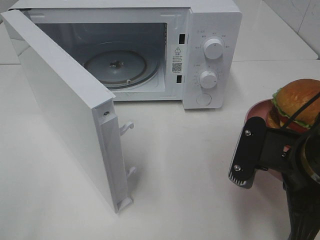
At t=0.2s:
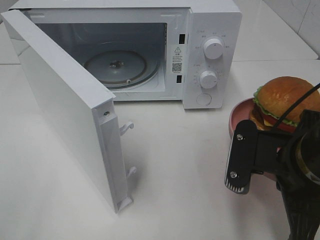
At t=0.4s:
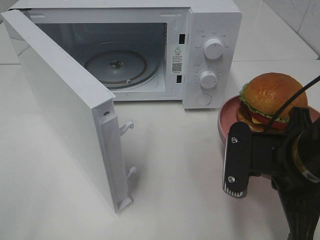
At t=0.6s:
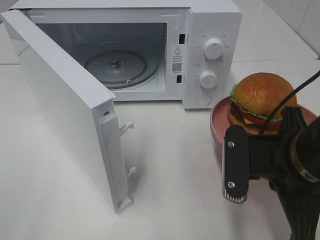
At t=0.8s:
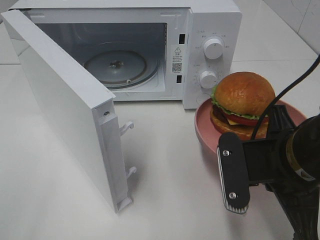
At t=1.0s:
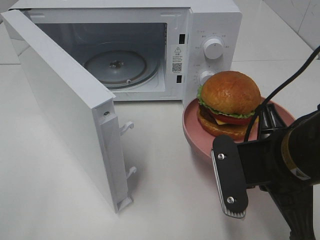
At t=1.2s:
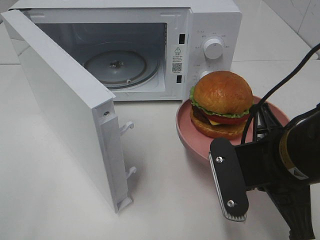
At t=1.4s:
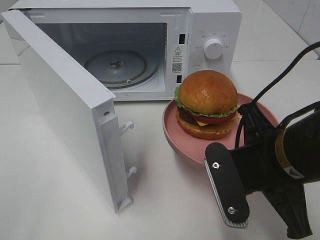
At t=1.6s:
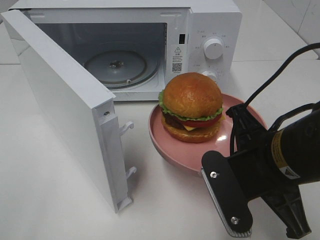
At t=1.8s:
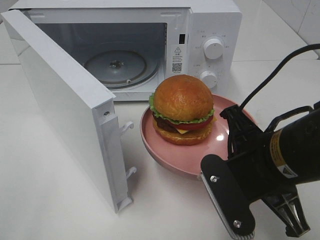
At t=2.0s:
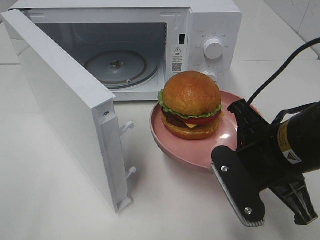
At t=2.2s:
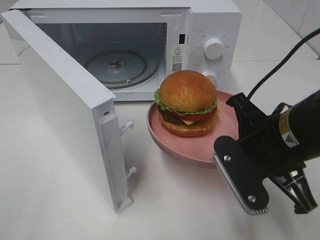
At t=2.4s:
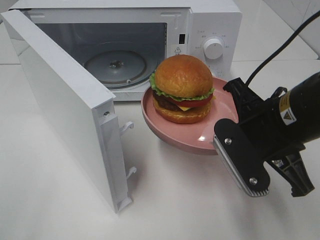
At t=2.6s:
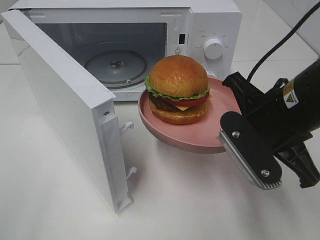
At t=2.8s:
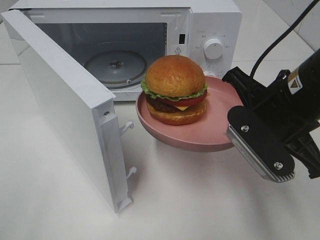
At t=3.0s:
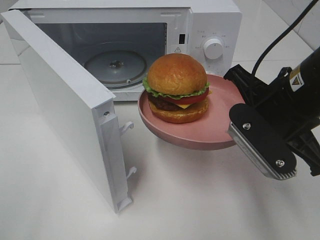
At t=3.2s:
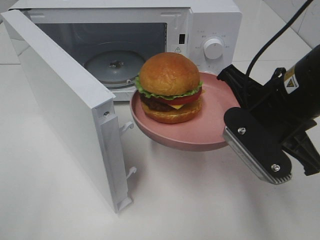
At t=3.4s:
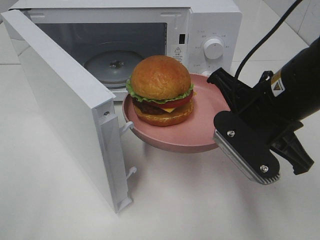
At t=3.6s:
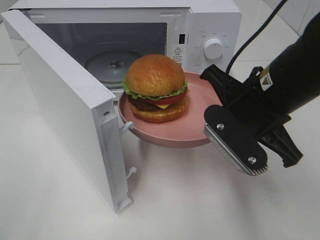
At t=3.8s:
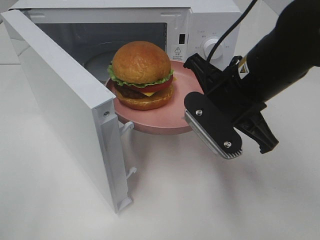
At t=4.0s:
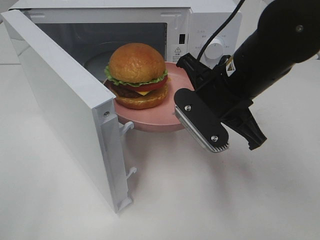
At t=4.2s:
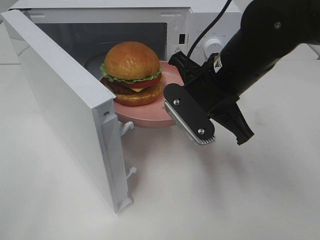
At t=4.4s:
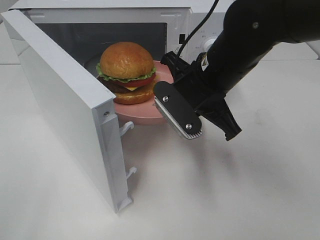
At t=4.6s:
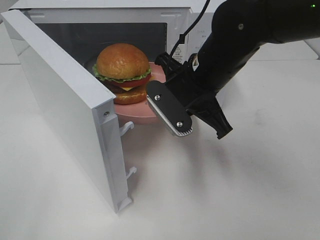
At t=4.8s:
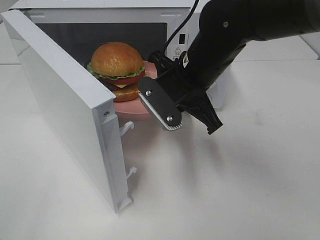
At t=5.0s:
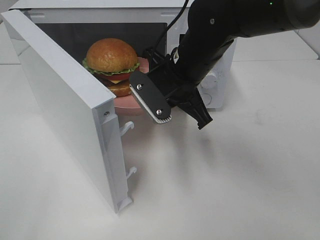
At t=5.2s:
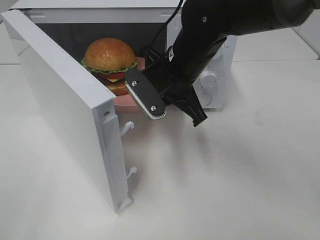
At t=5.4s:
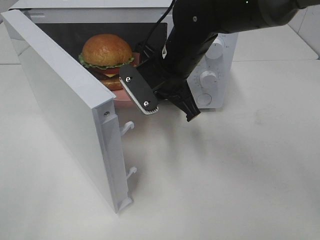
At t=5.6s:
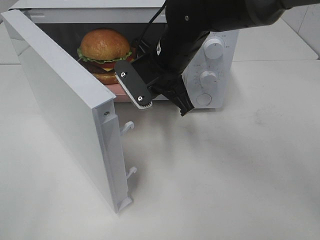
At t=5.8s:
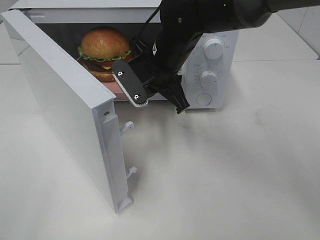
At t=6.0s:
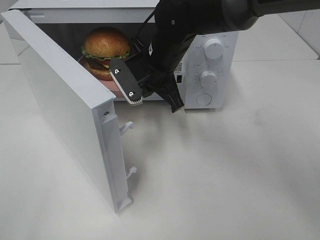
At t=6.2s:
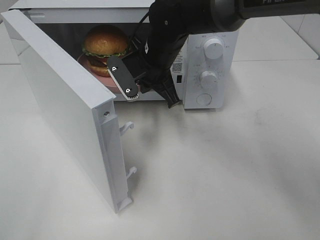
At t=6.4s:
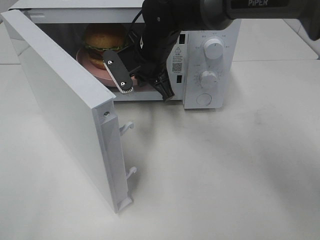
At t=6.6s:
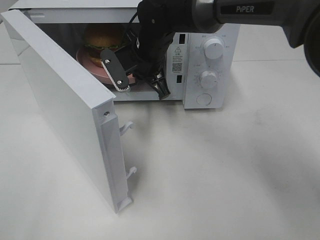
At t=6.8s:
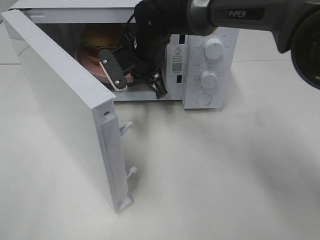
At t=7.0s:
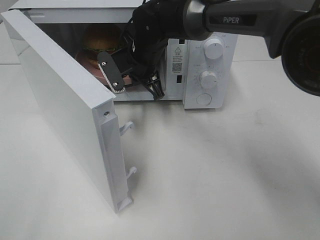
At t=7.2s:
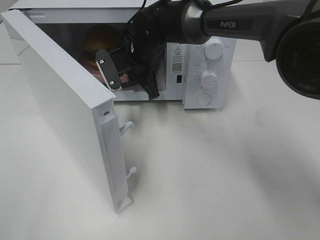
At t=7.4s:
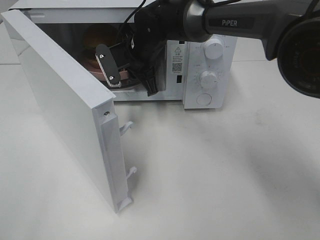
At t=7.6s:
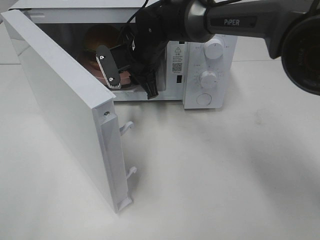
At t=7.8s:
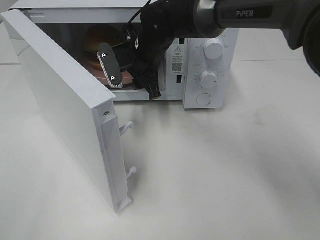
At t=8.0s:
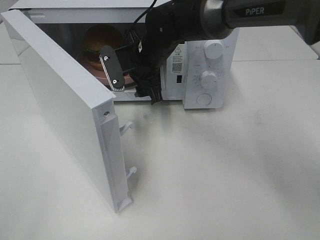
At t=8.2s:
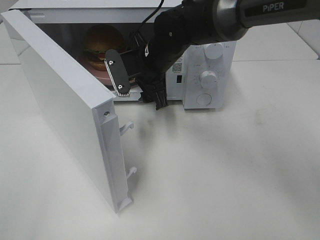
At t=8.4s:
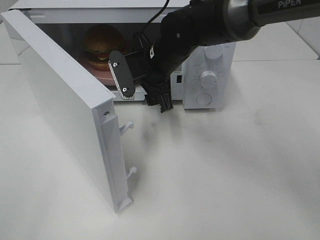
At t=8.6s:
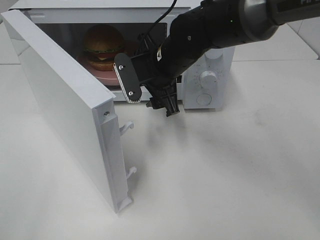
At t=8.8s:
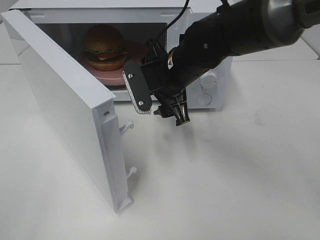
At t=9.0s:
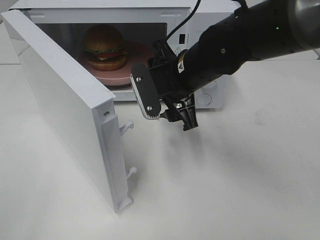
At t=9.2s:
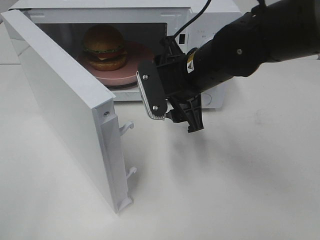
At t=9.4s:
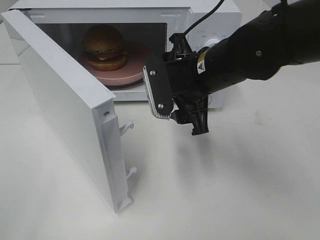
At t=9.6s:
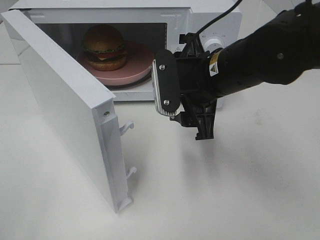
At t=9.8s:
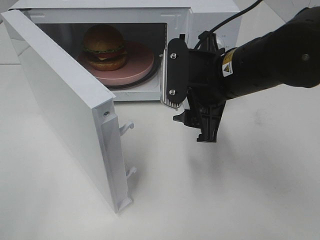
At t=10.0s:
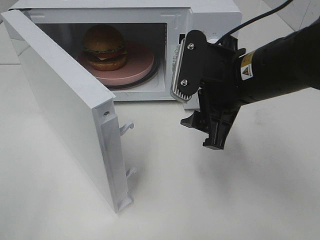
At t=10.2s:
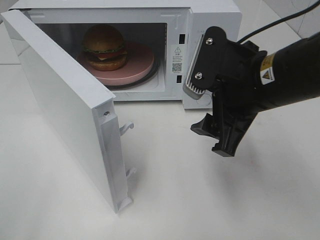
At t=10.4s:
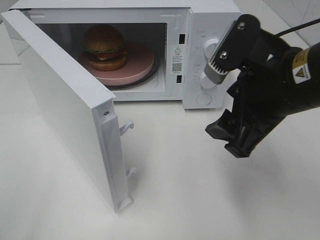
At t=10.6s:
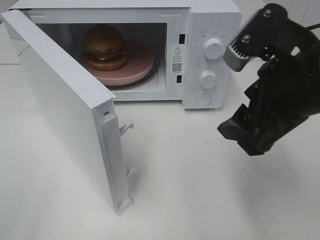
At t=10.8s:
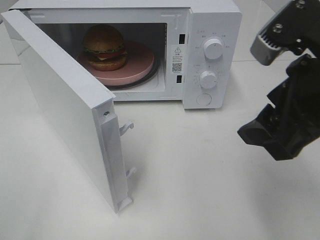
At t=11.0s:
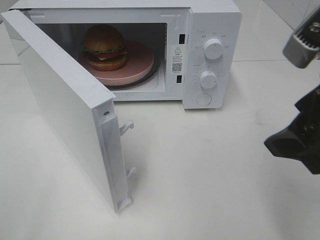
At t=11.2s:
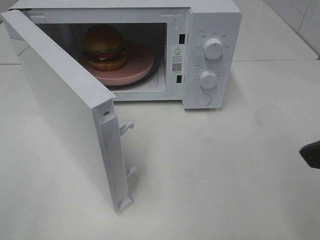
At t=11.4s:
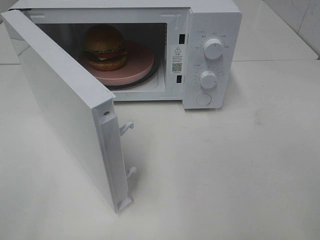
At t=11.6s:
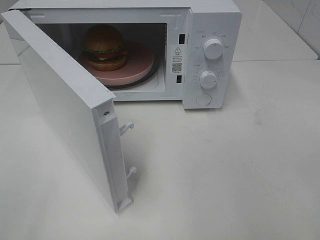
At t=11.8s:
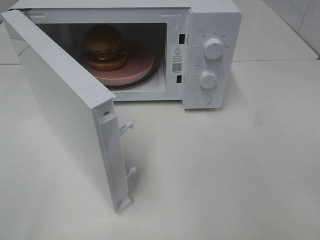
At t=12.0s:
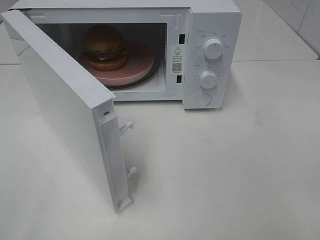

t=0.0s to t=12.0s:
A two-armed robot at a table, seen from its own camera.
Task of the whole recording: Heat the burger.
Step, t=0.0s to t=7.6s: Right hand: place the plate in the microwave.
t=1.6s to t=3.0s: The right gripper goes about 5 cm forward.
t=3.0s to t=4.4s: The right gripper goes about 10 cm to the left and forward.
t=4.4s to t=6.0s: The right gripper goes approximately 10 cm forward and to the left.
t=6.0s to t=7.6s: The right gripper moves forward, roughly 5 cm, and opens.
t=7.6s to t=9.0s: The right gripper travels backward and to the right by roughly 15 cm.
t=9.0s to t=10.4s: The right gripper moves backward, to the right and upward, roughly 15 cm.
t=10.4s to t=12.0s: The right gripper shifts approximately 20 cm backward and to the right.

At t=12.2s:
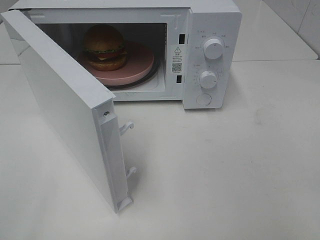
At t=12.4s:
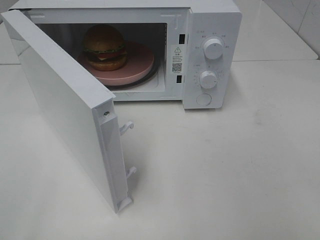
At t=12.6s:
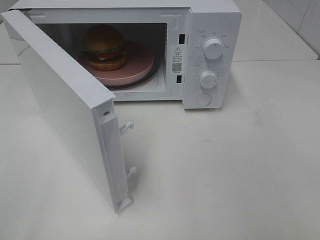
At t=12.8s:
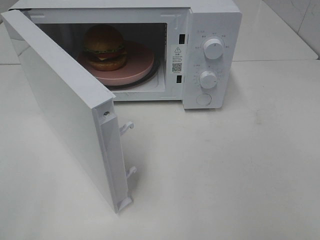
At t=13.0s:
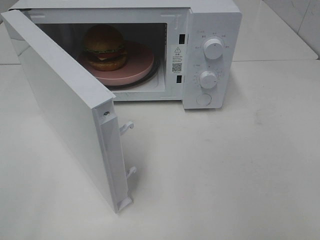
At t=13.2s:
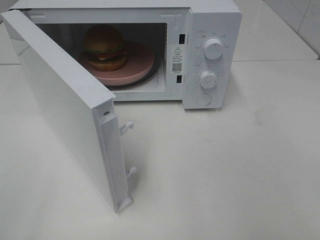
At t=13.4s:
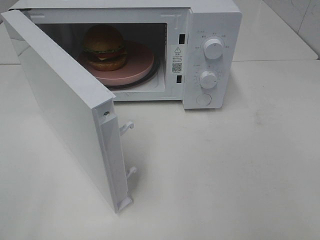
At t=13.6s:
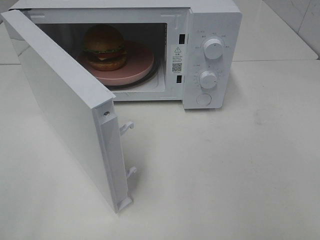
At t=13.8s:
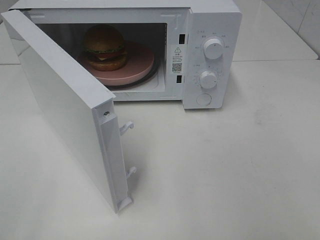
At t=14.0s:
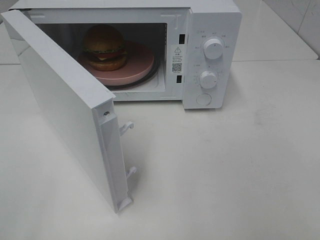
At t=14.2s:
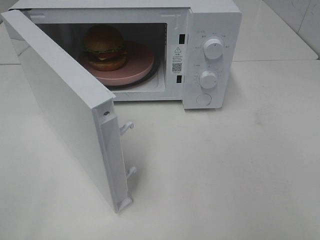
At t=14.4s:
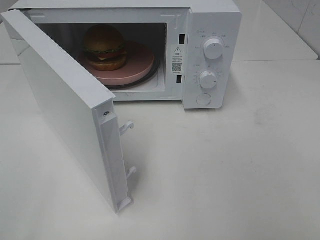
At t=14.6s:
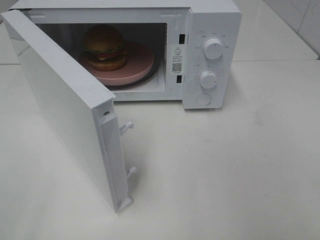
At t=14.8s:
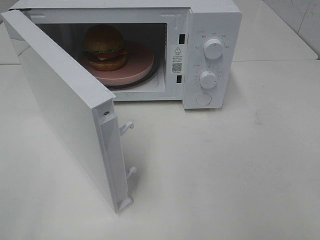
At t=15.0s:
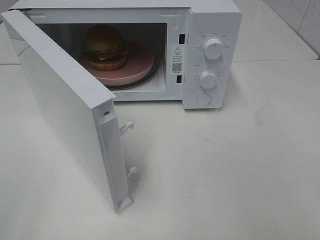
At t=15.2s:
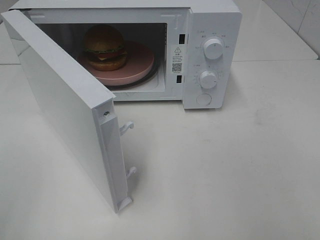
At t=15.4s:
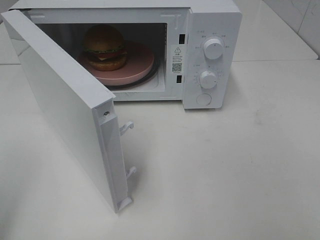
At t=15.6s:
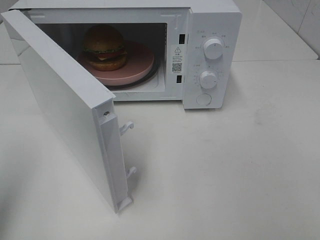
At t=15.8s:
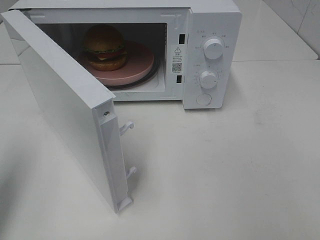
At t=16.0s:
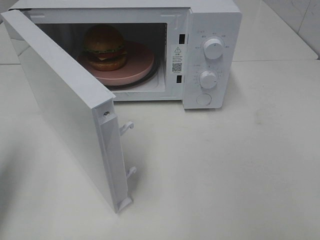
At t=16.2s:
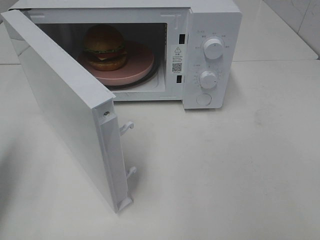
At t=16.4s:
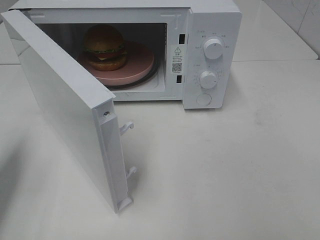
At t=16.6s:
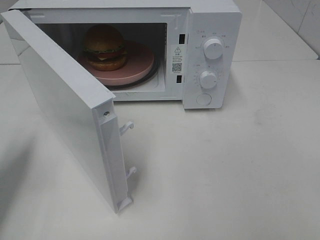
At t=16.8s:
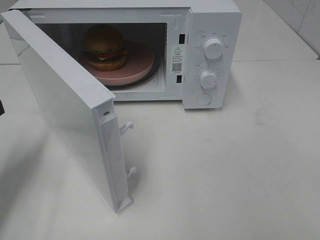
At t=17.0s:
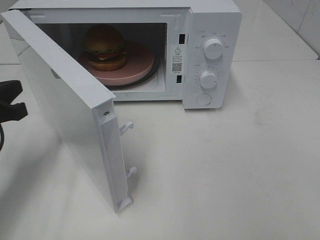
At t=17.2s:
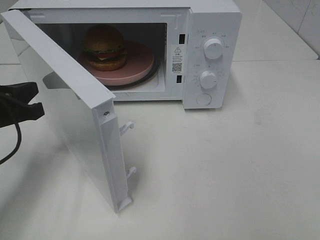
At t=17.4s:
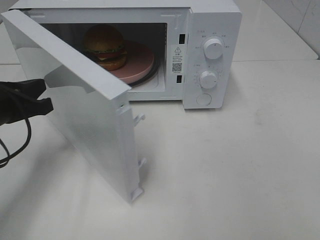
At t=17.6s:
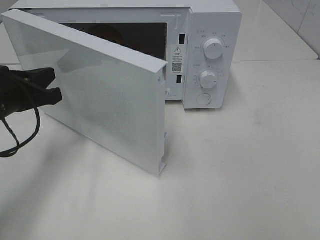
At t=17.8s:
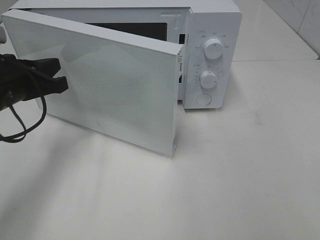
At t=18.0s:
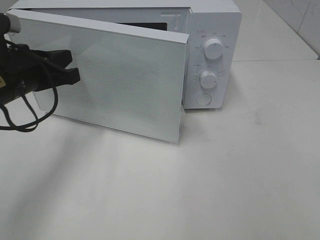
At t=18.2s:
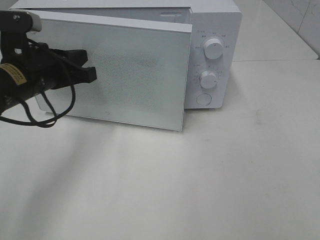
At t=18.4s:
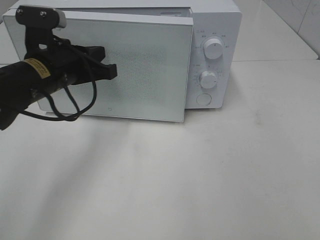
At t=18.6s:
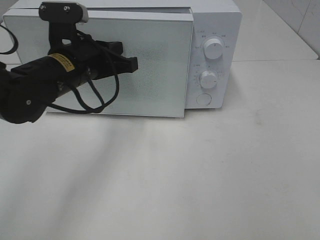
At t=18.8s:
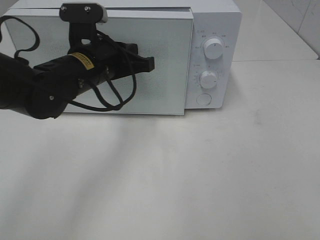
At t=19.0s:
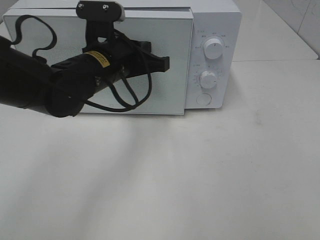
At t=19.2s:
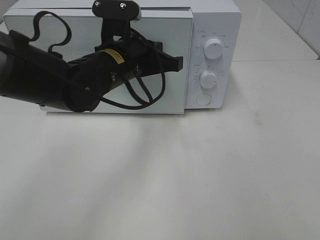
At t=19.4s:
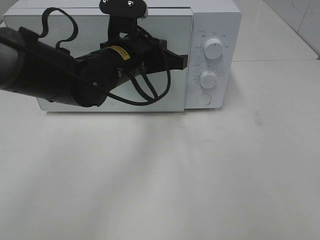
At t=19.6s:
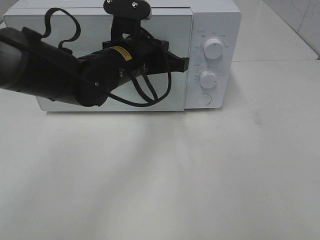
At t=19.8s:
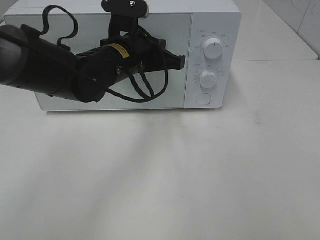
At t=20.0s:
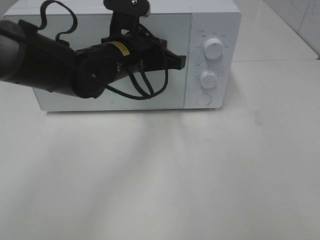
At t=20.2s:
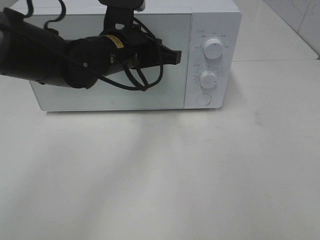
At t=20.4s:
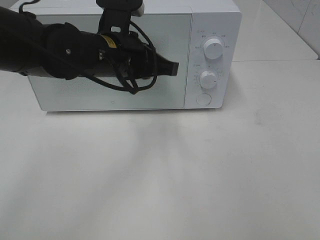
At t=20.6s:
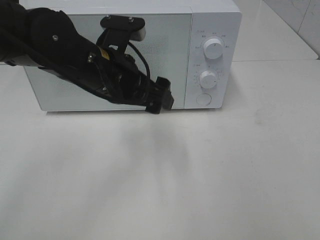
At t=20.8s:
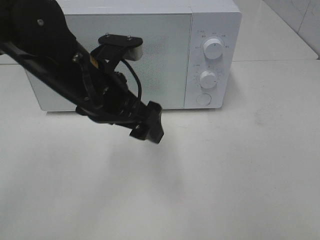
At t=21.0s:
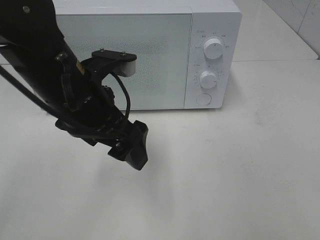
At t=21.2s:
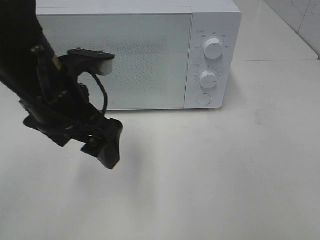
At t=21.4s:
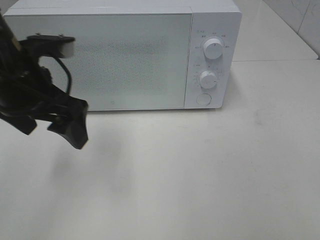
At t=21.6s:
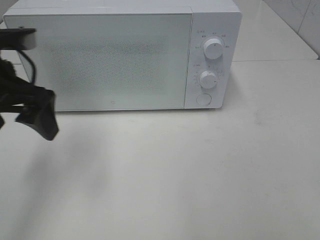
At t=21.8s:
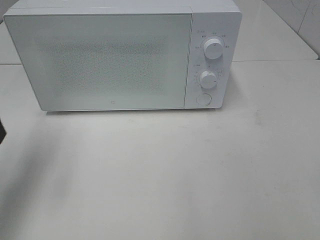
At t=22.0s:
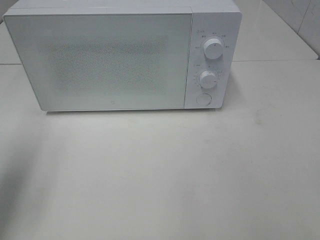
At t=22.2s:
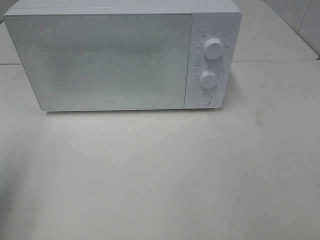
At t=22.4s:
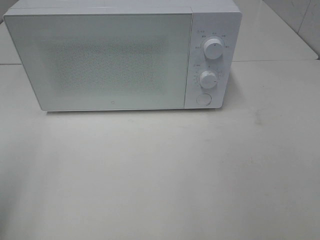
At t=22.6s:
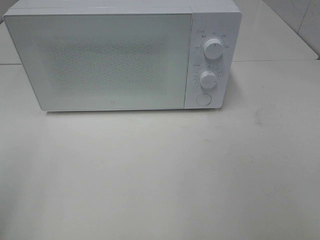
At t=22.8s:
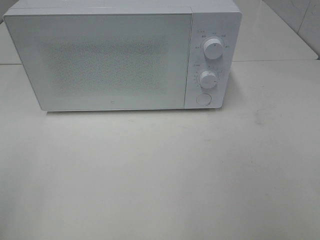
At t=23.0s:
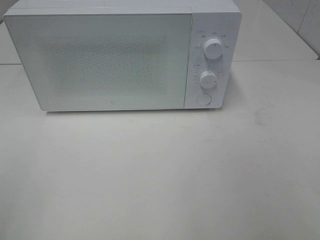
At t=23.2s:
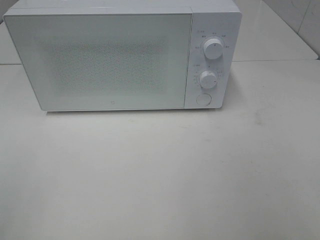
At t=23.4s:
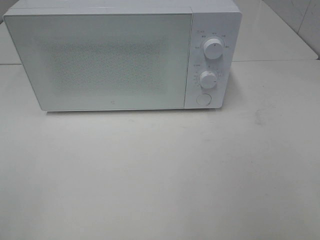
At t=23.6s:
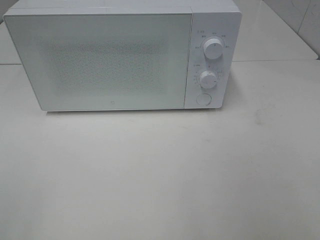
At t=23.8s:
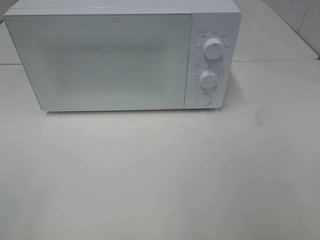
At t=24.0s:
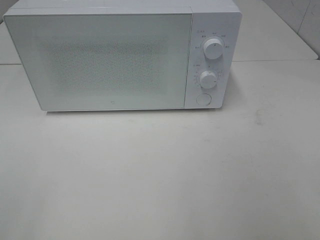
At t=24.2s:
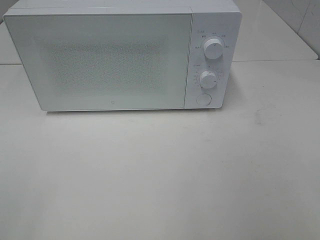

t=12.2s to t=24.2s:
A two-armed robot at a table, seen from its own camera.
Task of the whole recording: Heat the burger.
Step, t=12.2s to t=20.2s: Left hand: close the microwave door.
t=15.2s to t=16.6s: The left gripper shifts some 20 cm forward and downward, and closes up.
t=16.6s to t=18.2s: The left gripper moves to the right and forward, approximately 15 cm.
t=18.2s to t=19.8s: The left gripper shifts some 15 cm to the right.
t=19.8s to t=21.2s: The left gripper is displaced backward and to the left by about 15 cm, and opens its fingers.
t=21.2s to t=22.6s: The left gripper goes some 25 cm to the left and backward.
